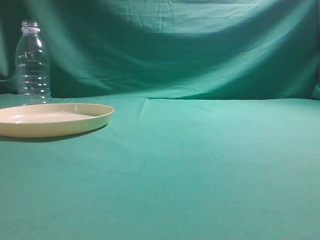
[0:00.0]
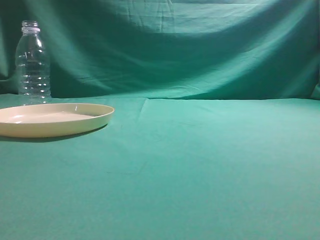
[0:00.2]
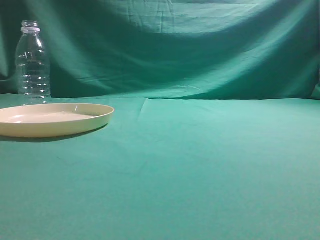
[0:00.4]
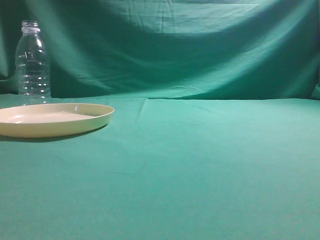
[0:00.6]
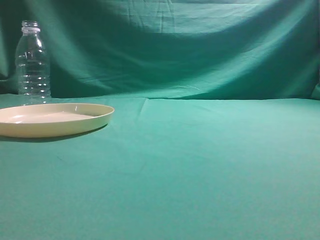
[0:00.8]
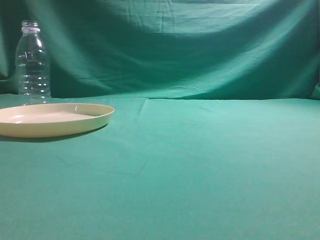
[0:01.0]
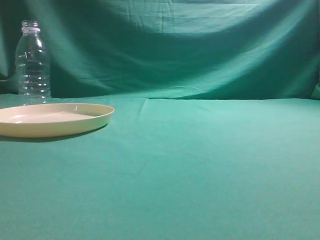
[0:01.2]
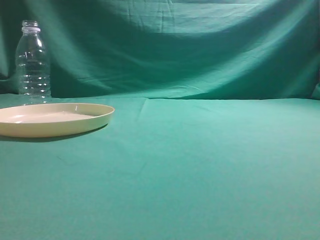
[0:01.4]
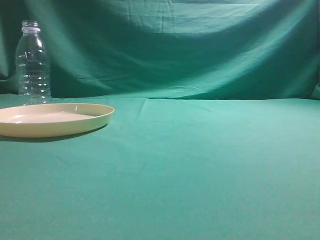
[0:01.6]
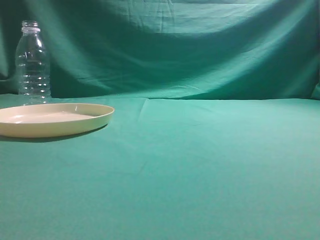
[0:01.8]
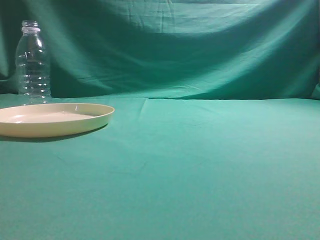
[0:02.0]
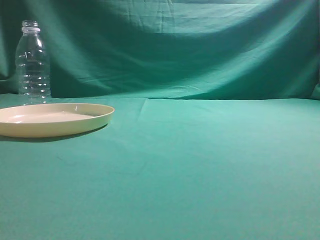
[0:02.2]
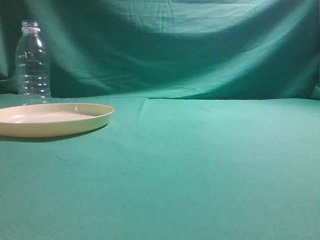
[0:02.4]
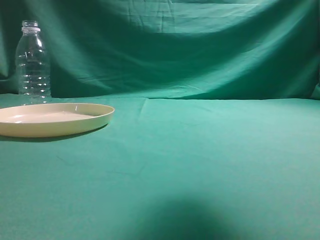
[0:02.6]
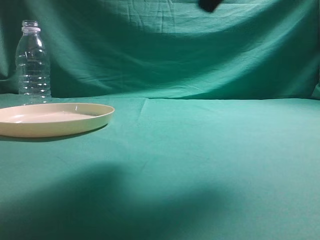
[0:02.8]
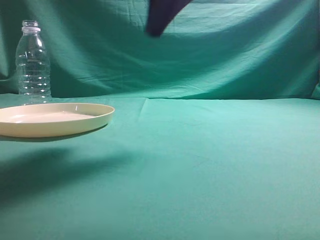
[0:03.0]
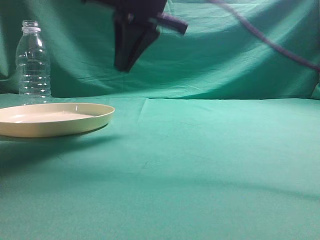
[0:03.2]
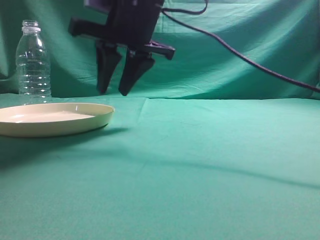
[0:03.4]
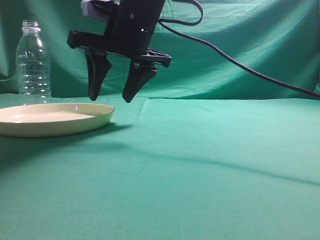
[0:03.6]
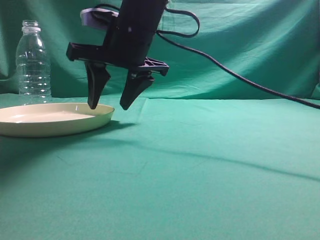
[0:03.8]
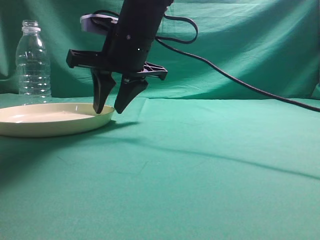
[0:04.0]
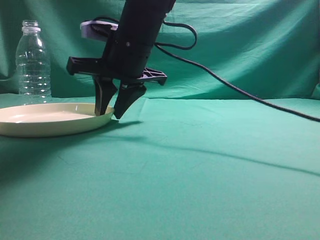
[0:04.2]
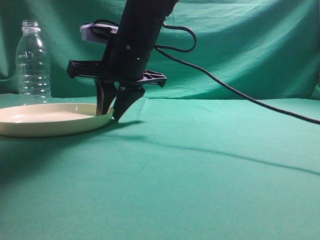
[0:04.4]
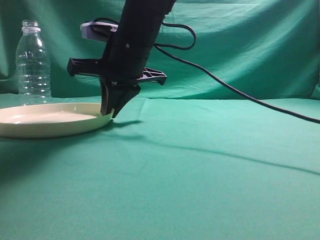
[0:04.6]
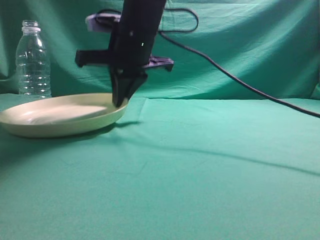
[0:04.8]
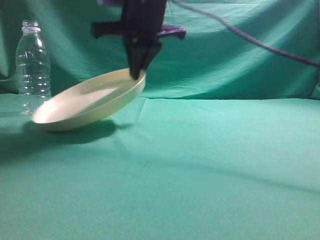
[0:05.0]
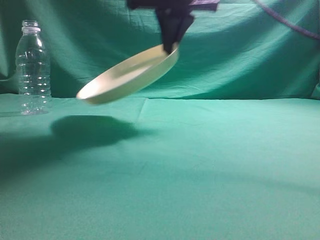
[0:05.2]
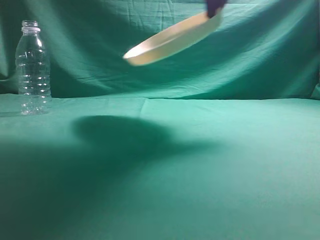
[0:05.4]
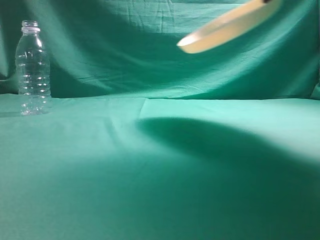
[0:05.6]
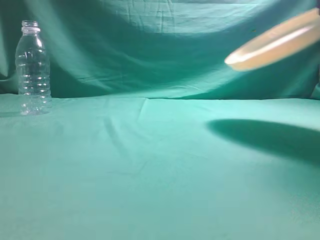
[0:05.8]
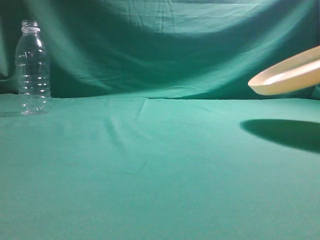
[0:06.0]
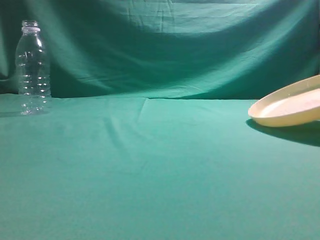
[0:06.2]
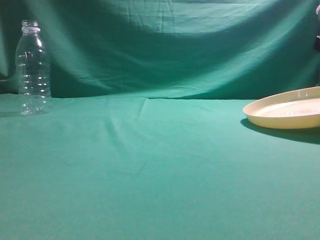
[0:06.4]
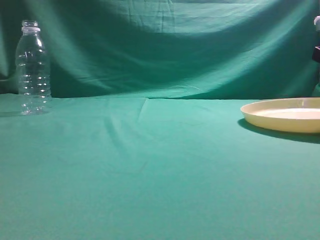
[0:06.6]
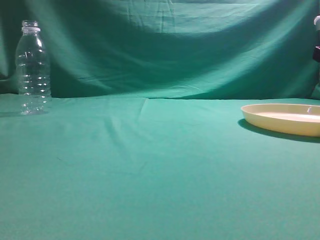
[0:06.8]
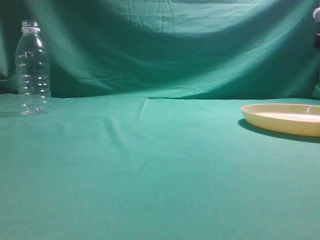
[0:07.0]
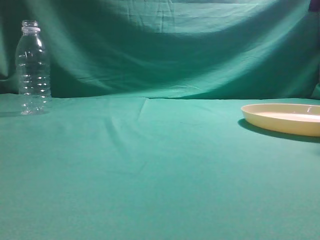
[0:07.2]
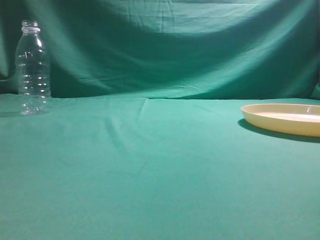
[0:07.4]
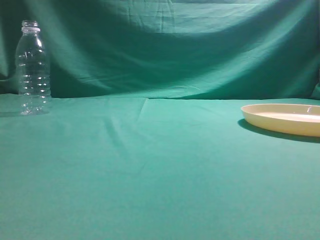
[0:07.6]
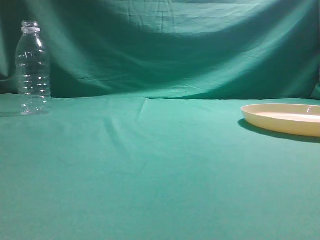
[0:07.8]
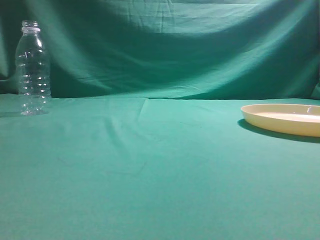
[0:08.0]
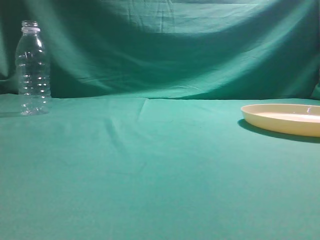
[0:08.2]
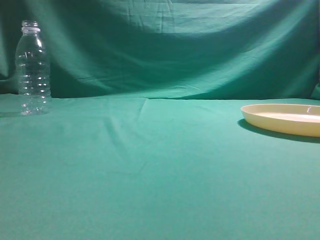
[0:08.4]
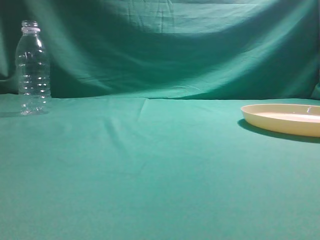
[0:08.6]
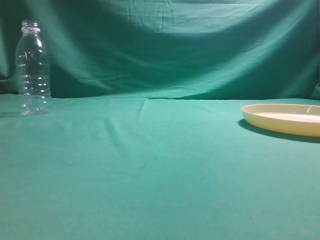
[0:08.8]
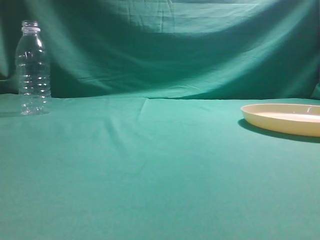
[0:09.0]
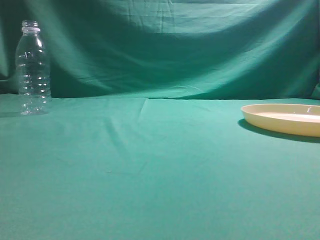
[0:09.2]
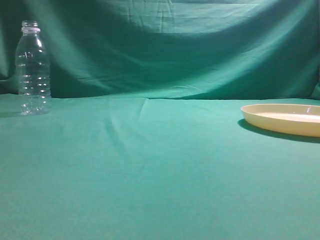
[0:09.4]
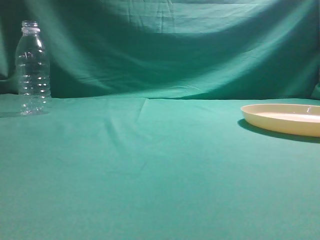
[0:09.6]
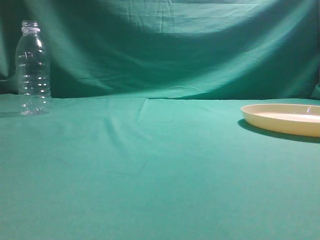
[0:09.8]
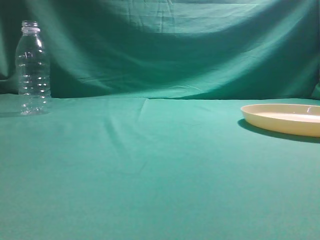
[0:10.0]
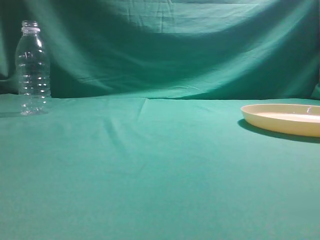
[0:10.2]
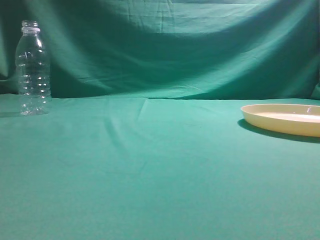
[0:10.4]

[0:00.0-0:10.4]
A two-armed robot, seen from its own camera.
Step, 0:00.0 to 0:05.0: Pick the container that can hold fruits.
Step, 0:05.2 to 0:07.0: Move the picked object to the right side of the table.
0:01.4 to 0:03.0: The right gripper shifts roughly 35 cm forward and to the left.
0:03.0 to 0:04.4: The right gripper travels downward, to the left and forward by about 20 cm, and opens its fingers.
0:04.4 to 0:06.0: The right gripper goes about 35 cm to the right and upward, and closes its fingers.
0:06.0 to 0:07.4: The right gripper travels downward and back again, some 10 cm each way, and opens, then closes again.
